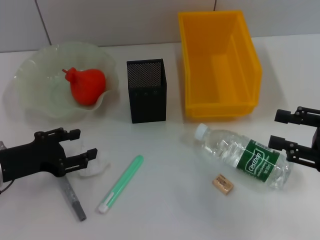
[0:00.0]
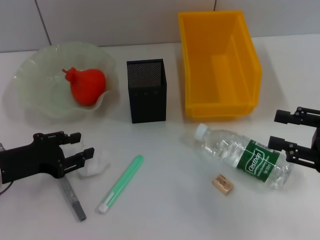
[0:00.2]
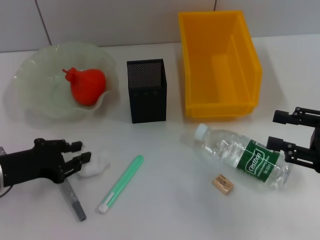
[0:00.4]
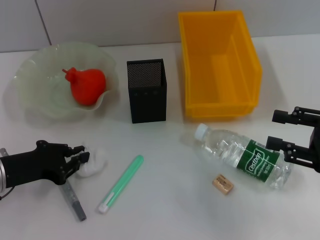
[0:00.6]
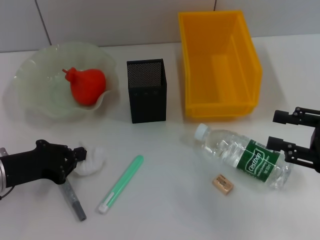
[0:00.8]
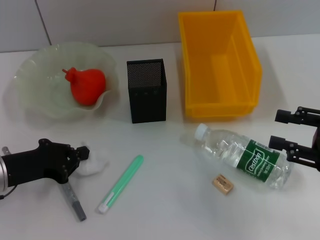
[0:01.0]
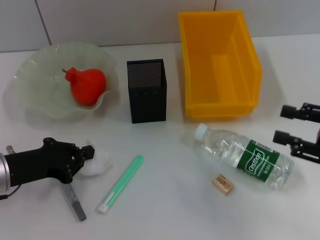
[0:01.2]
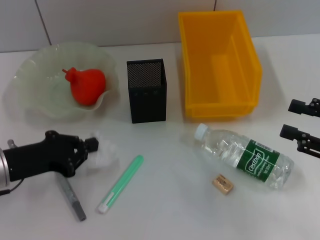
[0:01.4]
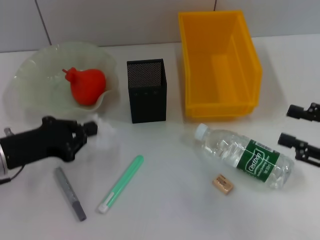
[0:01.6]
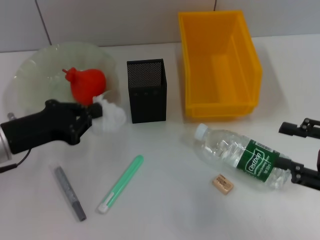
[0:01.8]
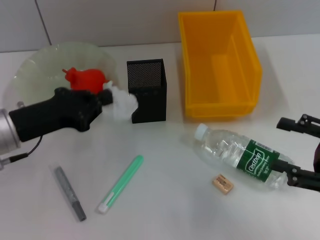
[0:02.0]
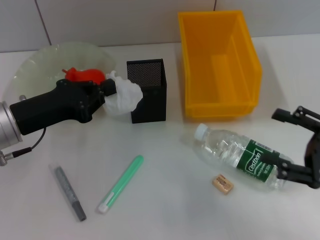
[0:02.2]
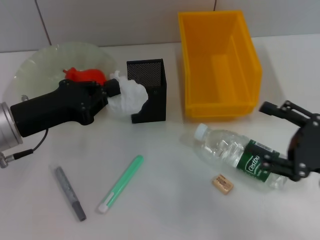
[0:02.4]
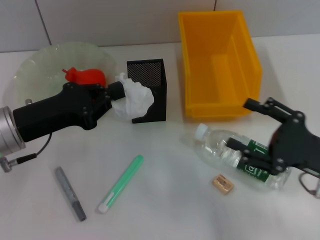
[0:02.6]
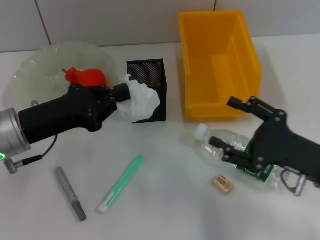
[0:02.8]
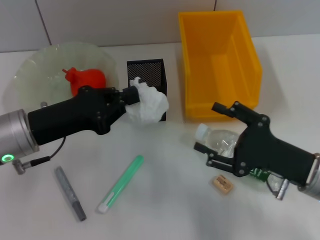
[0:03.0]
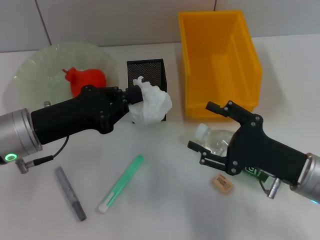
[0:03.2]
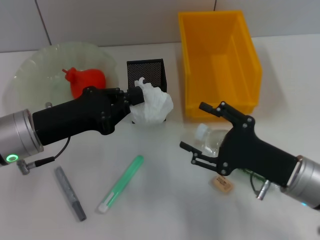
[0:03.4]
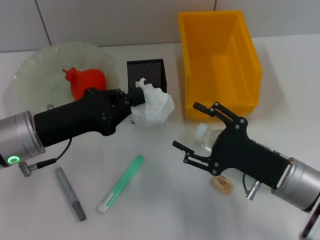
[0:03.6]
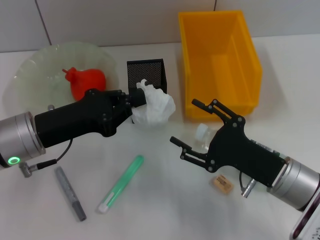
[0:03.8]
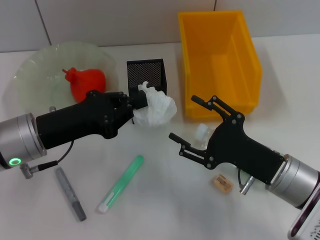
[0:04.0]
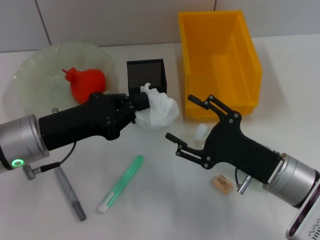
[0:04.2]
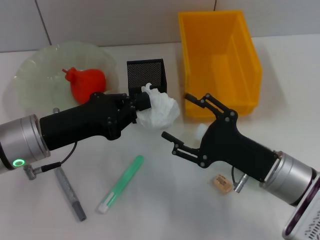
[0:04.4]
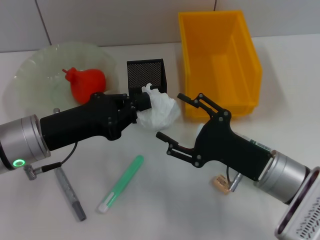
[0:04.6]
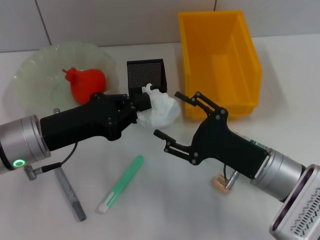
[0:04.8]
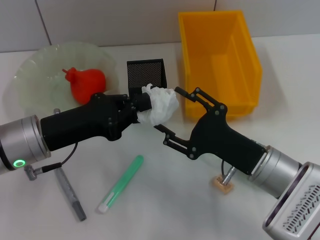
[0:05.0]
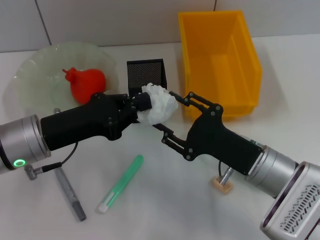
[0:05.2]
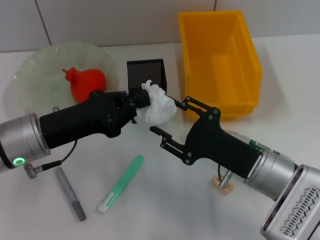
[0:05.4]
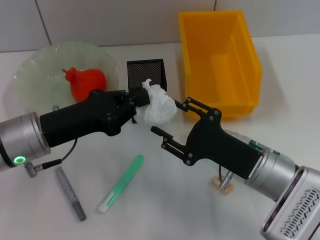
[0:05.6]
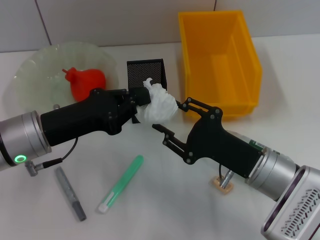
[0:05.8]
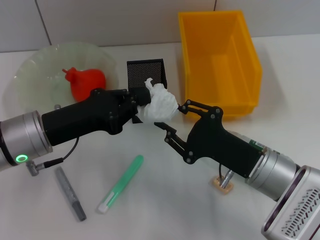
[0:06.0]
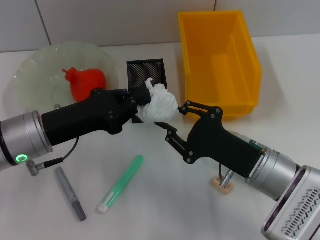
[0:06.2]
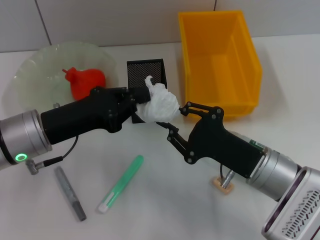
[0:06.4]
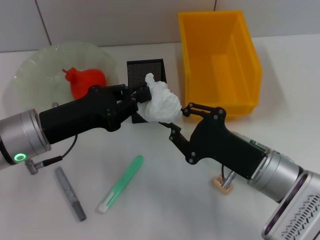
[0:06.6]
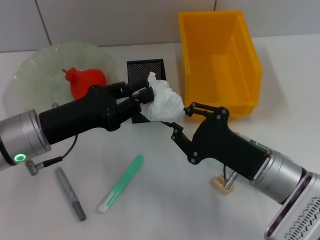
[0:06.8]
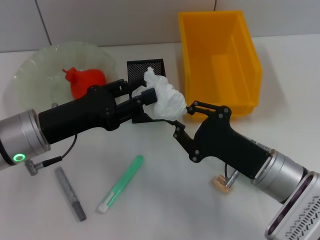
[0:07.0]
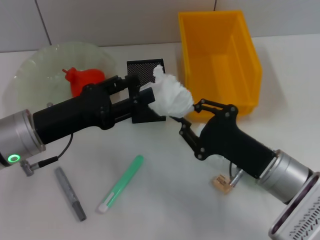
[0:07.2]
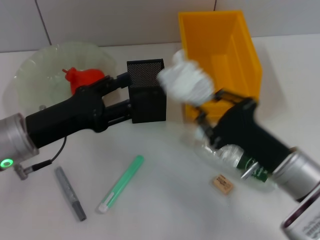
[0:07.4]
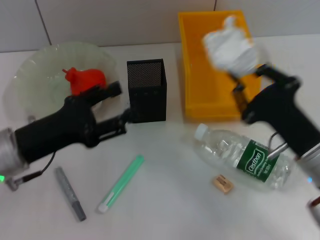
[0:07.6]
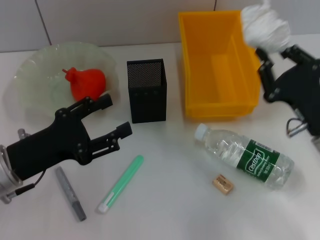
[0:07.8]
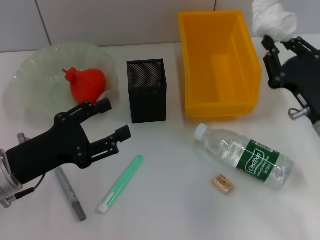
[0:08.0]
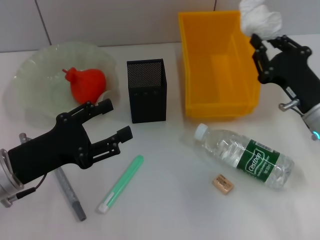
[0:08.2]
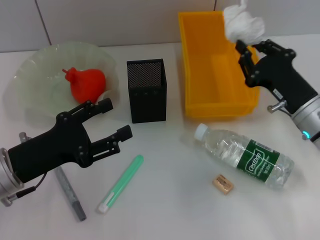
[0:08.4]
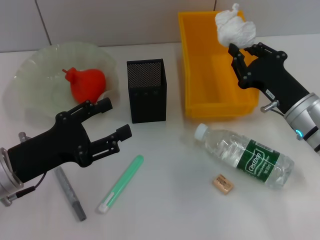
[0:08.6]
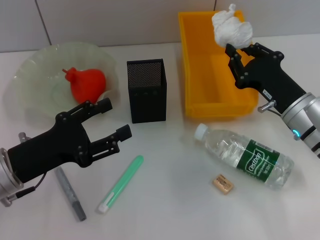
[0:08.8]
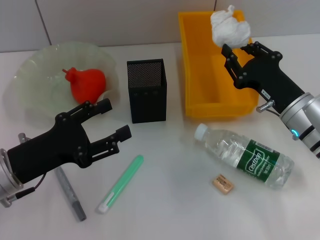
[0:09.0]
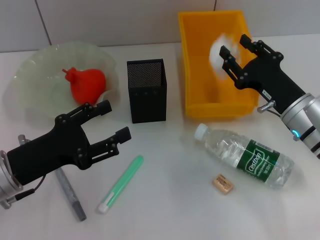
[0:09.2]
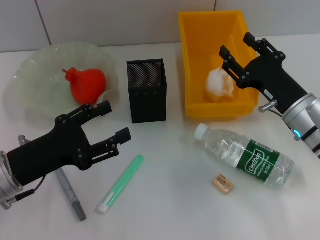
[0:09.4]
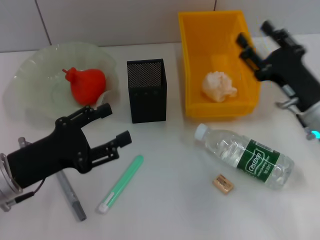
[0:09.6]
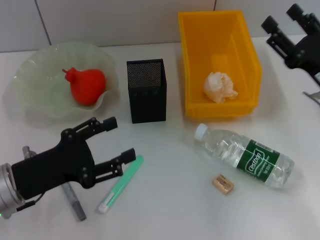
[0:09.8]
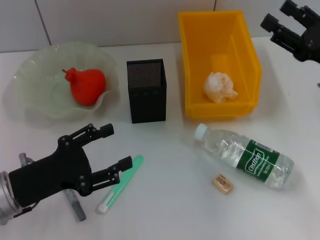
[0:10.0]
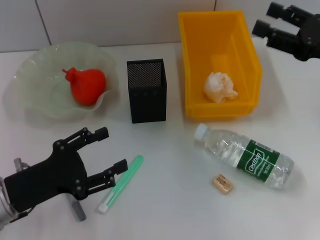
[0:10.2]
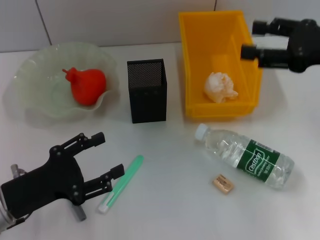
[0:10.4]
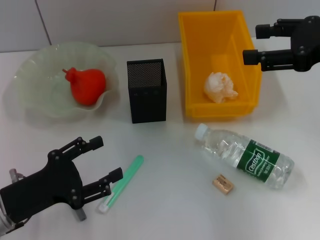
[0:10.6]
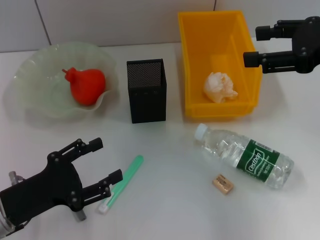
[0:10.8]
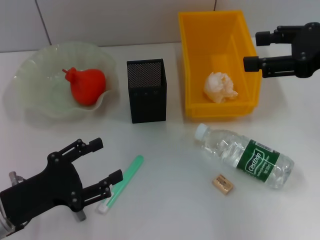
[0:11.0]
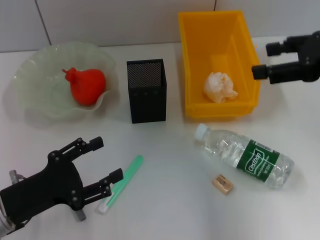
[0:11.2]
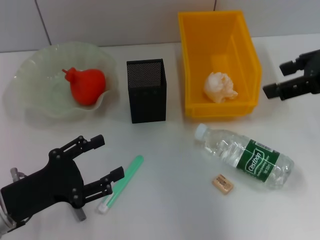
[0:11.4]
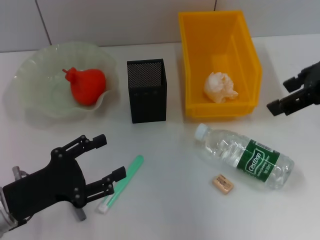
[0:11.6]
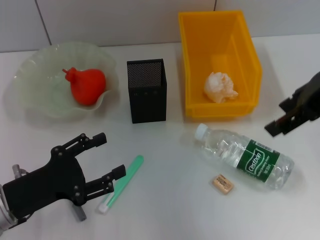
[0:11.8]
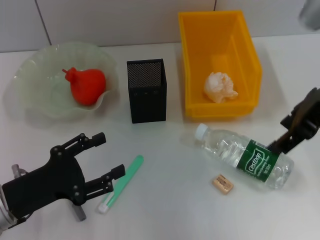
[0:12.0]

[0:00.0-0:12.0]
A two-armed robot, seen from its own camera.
Step, 0:01.6 to 0:07.2: Pass the paper ball from the left hand to the right hand.
Step, 0:07.4 to 0:09.4: Place the paper ball into the trash can with the right hand.
0:00.0 to 0:01.6: The left gripper closes.
0:01.6 to 0:03.0: The right gripper heads to the left and downward, covering some 10 cm. Meanwhile the left gripper ends up some 5 cm from where it was.
0:03.0 to 0:04.4: The right gripper travels to the left by roughly 5 cm.
0:04.4 to 0:06.0: The right gripper closes.
0:06.0 to 0:07.6: The left gripper opens its fingers. Meanwhile the right gripper shifts roughly 5 cm to the right.
0:07.6 to 0:09.0: The right gripper heads forward, covering about 10 cm.
0:09.0 to 0:10.4: The right gripper shifts approximately 15 cm upward and to the right, and opens up.
0:10.4 to 0:12.0: The right gripper is displaced to the left by some 5 cm.

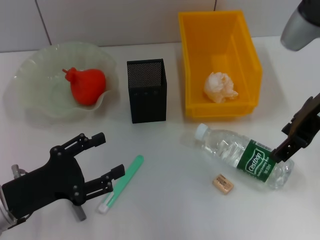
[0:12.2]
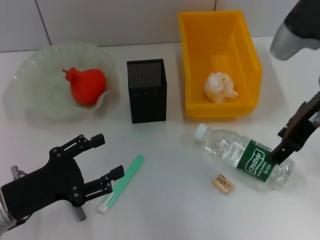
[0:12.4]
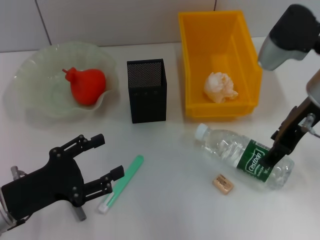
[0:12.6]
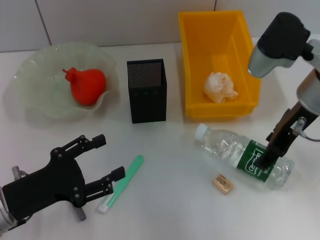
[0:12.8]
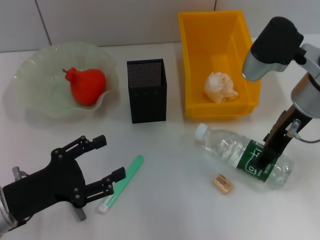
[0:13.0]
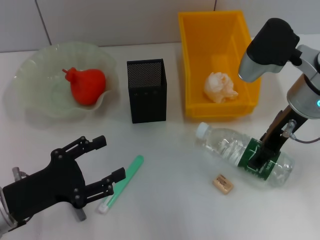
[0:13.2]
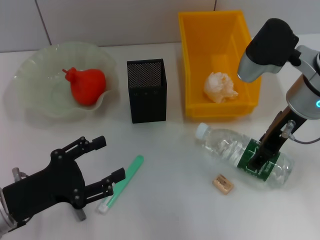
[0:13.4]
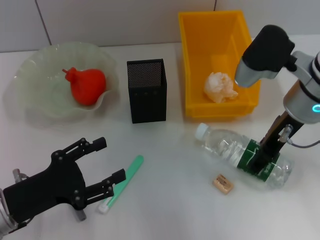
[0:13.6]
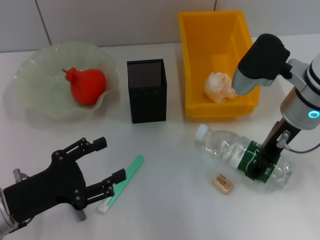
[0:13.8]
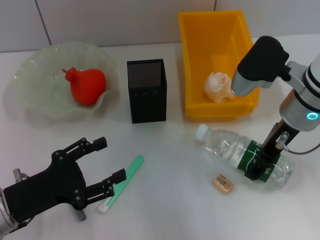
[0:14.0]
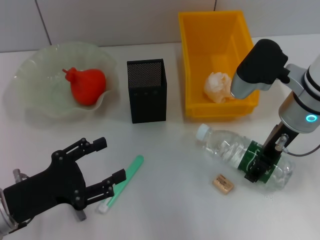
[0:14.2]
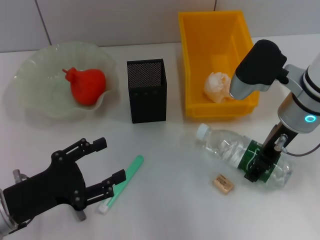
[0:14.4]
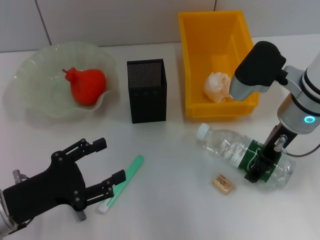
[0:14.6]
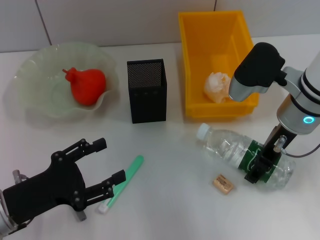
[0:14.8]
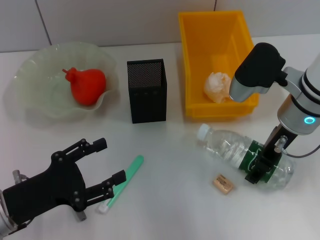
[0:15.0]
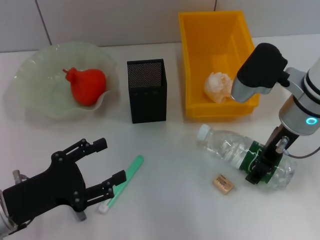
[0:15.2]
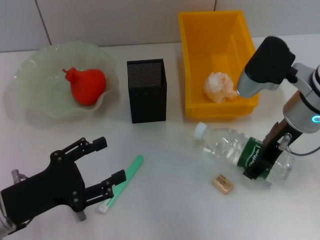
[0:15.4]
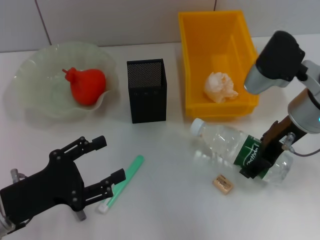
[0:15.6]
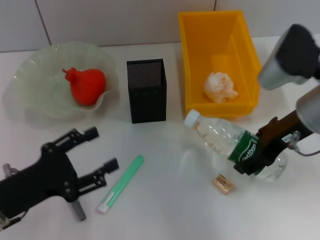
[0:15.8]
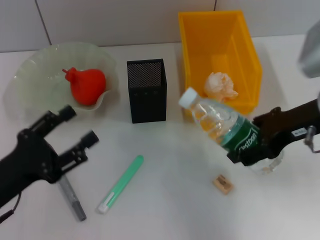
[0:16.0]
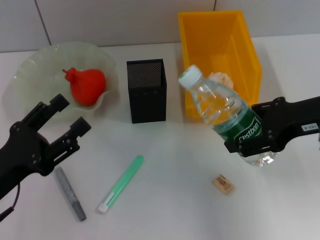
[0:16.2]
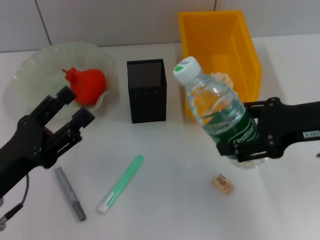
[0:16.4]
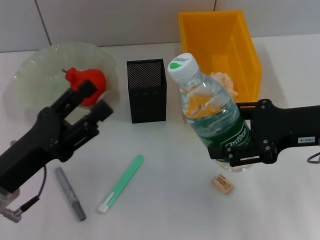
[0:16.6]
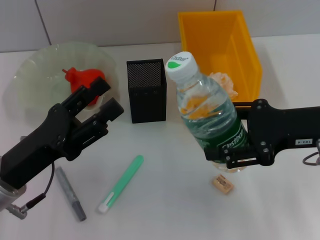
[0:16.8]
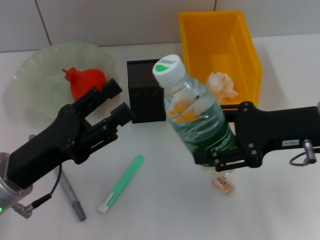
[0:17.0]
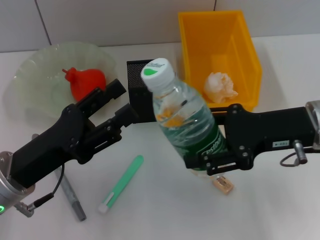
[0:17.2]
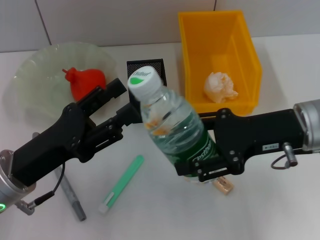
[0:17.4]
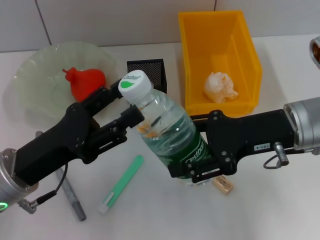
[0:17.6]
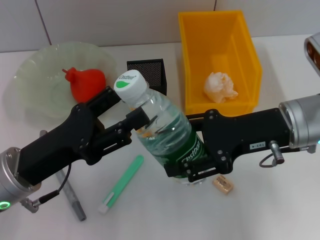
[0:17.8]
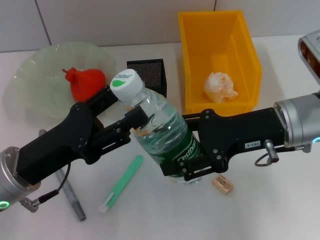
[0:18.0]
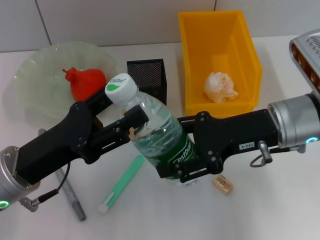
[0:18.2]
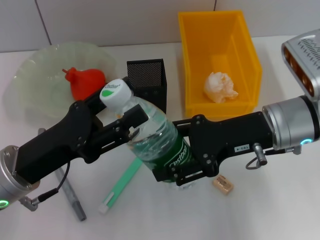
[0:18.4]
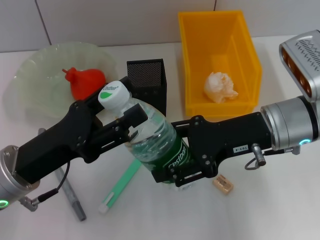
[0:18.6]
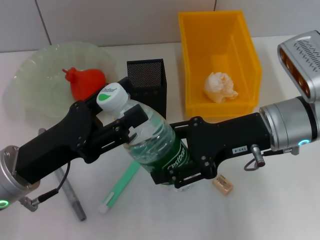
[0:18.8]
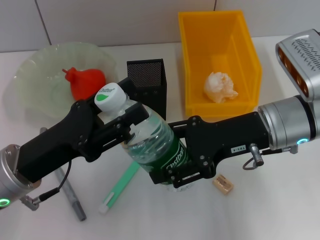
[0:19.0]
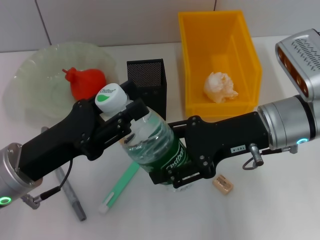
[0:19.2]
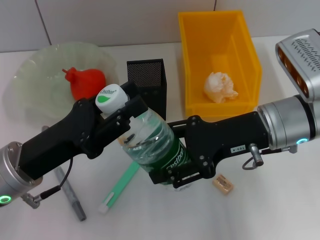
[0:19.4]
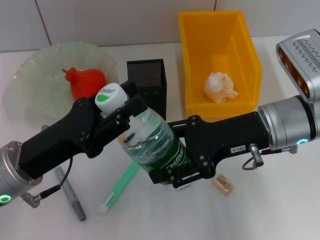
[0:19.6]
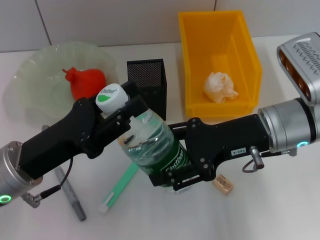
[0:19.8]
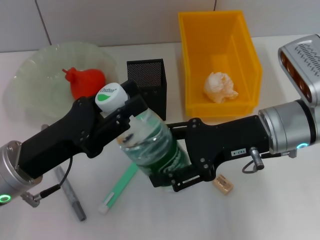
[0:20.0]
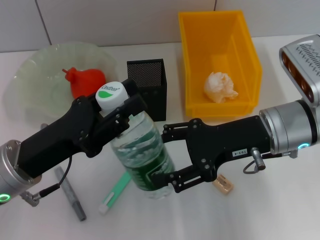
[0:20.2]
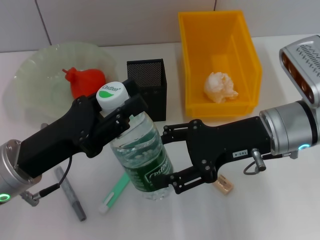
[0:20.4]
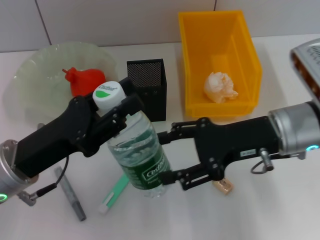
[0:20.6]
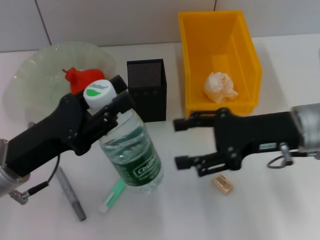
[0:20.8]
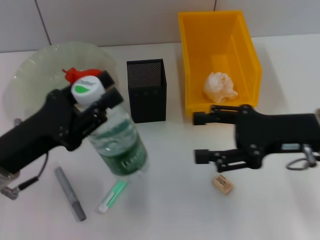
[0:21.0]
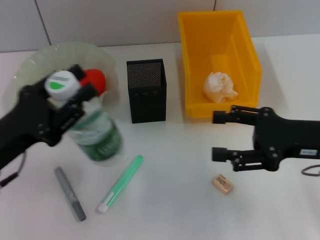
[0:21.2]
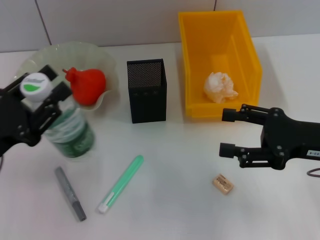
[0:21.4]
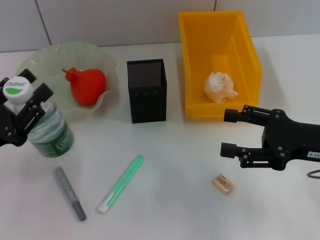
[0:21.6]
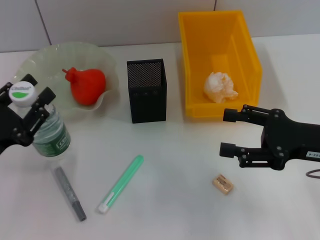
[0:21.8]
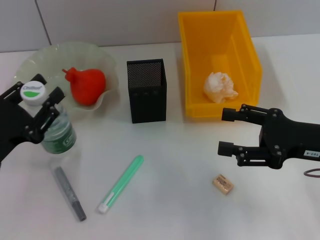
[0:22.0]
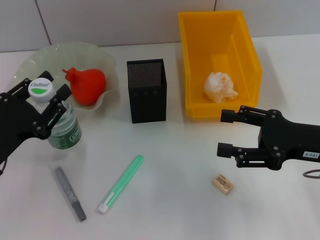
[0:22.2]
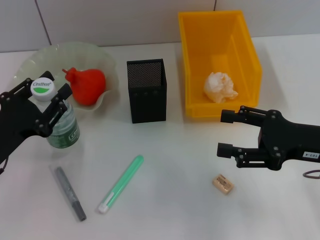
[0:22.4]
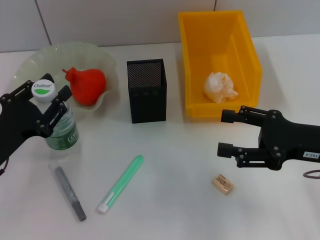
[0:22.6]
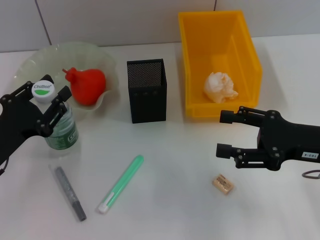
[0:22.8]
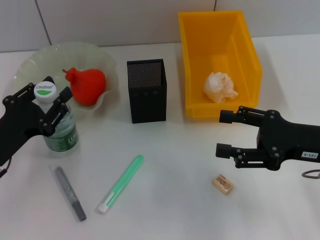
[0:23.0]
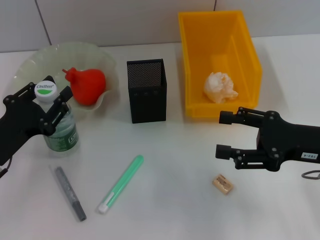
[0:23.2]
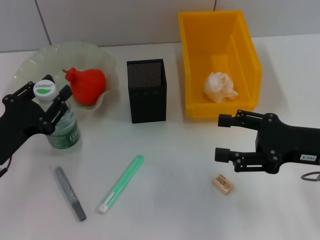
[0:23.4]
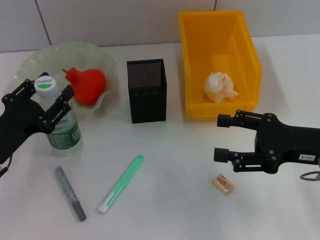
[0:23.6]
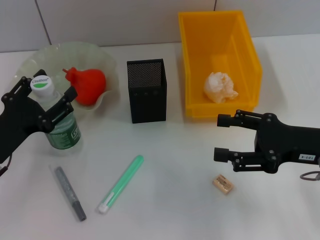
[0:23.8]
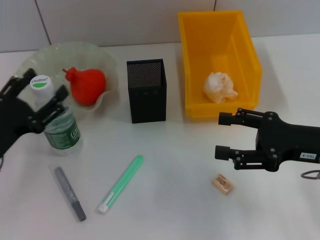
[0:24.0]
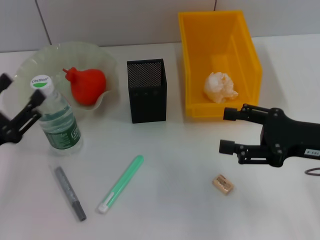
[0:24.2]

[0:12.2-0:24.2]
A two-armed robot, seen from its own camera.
Step, 0:12.2 to 0:15.4: Grab the water bottle with the right hand.
Step, 0:15.6 to 0:20.4: Pass the water bottle from the right hand to the left hand.
Step, 0:20.6 to 0:24.0: Place the water bottle on the table with the left hand.
0:12.2 to 0:13.8: The right gripper is displaced downward by roughly 10 cm.
0:13.8 to 0:15.2: The grippers stay close to where they were, moving slightly.
0:15.2 to 0:16.6: The right gripper moves backward and to the right, about 10 cm.
0:16.6 to 0:18.2: The right gripper heads to the left, covering about 5 cm.
0:18.2 to 0:19.8: The left gripper closes.
0:19.8 to 0:21.2: The right gripper is displaced to the right by approximately 10 cm.
0:22.6 to 0:24.2: The left gripper opens up.
